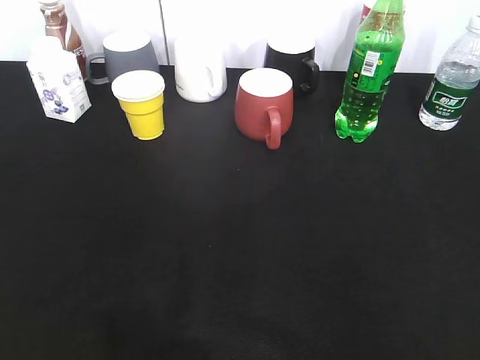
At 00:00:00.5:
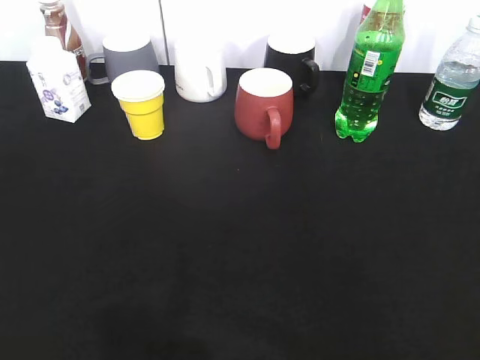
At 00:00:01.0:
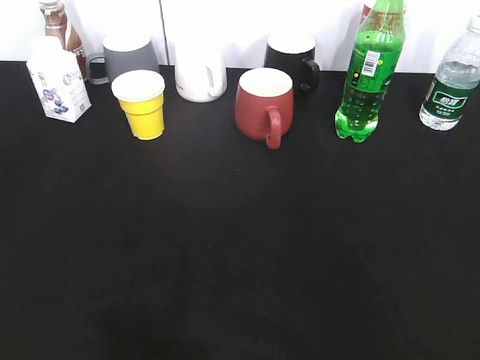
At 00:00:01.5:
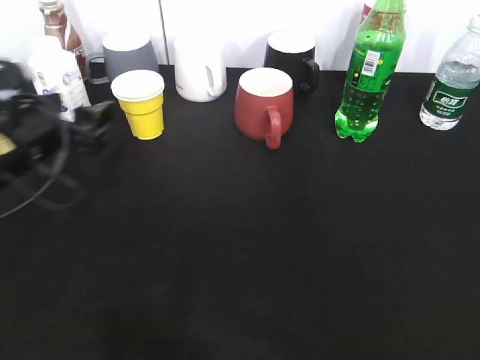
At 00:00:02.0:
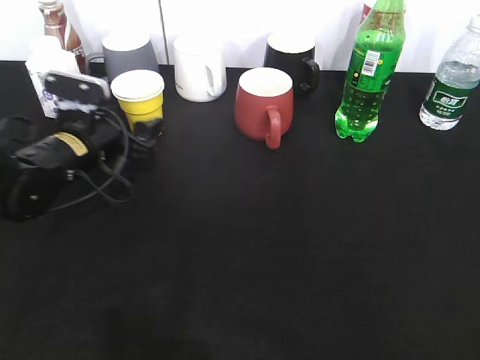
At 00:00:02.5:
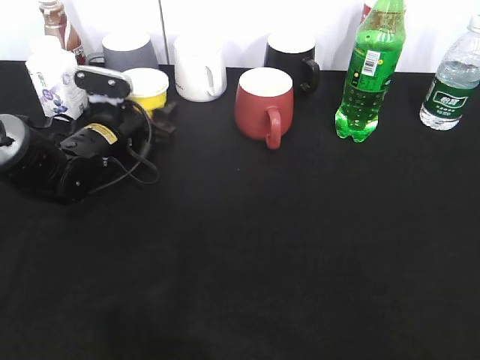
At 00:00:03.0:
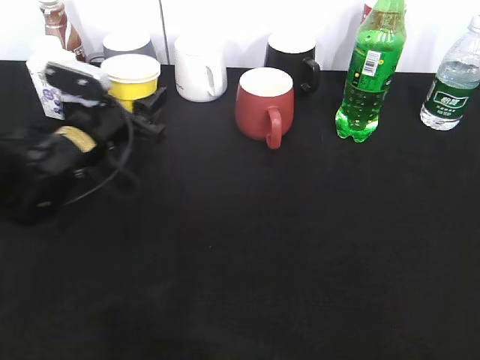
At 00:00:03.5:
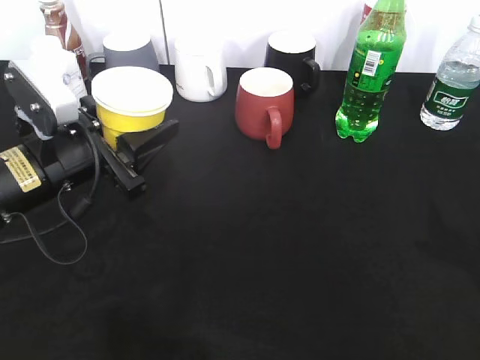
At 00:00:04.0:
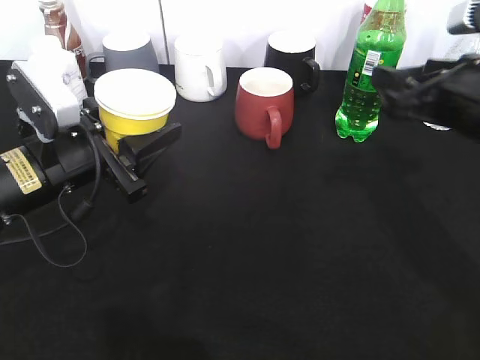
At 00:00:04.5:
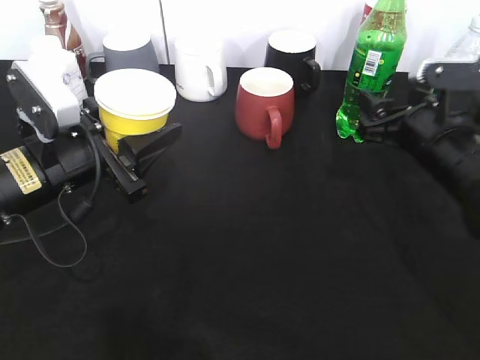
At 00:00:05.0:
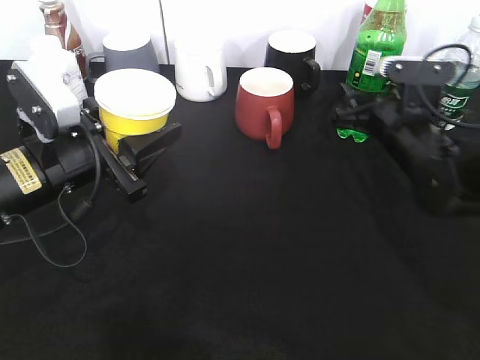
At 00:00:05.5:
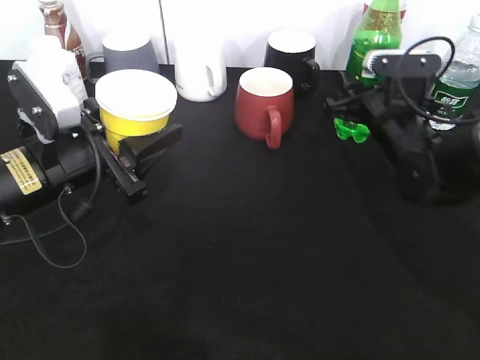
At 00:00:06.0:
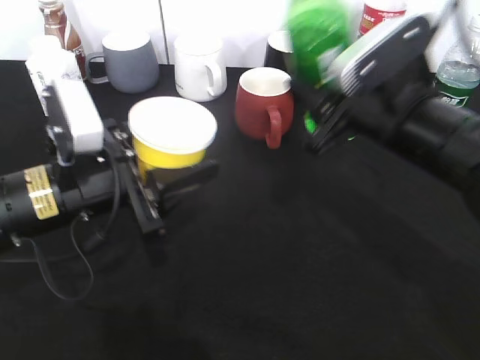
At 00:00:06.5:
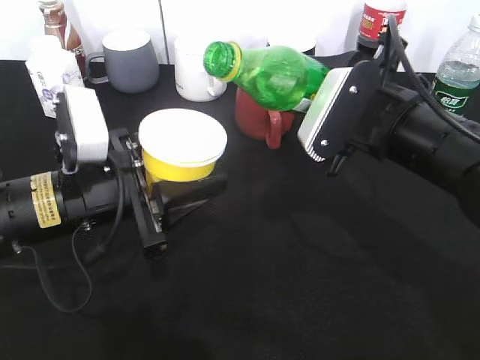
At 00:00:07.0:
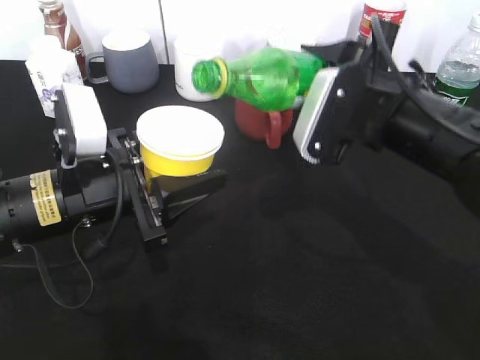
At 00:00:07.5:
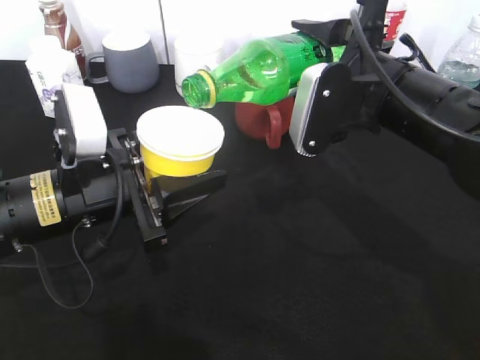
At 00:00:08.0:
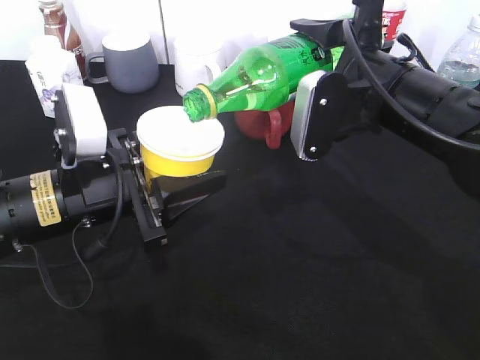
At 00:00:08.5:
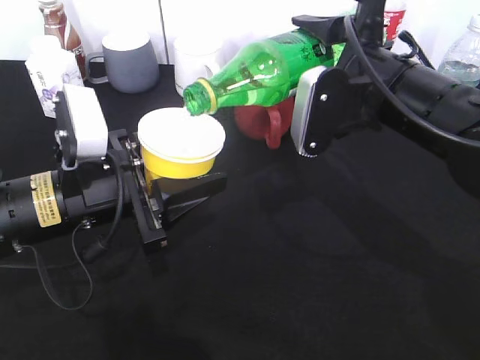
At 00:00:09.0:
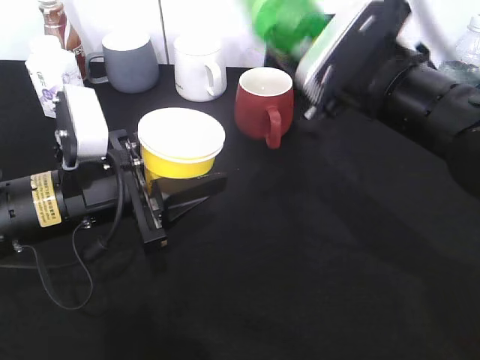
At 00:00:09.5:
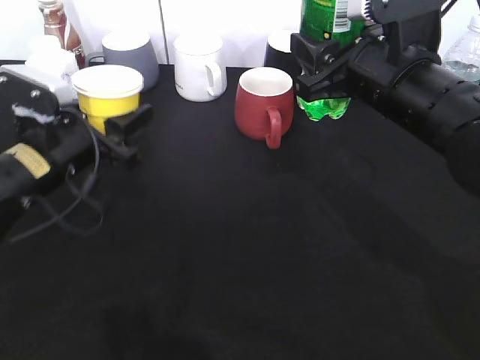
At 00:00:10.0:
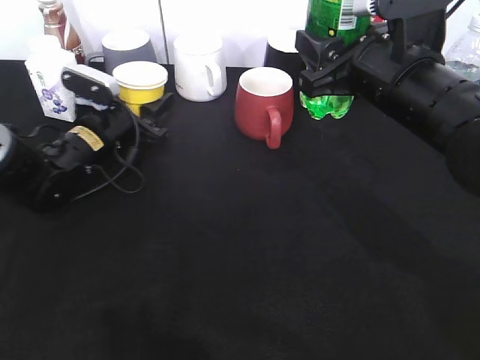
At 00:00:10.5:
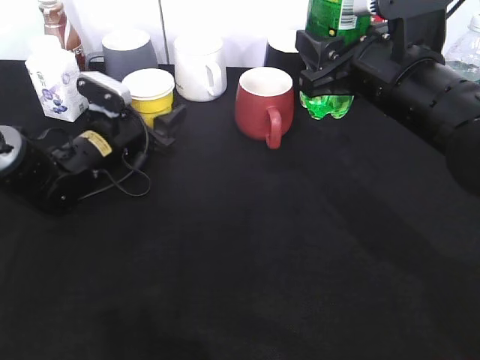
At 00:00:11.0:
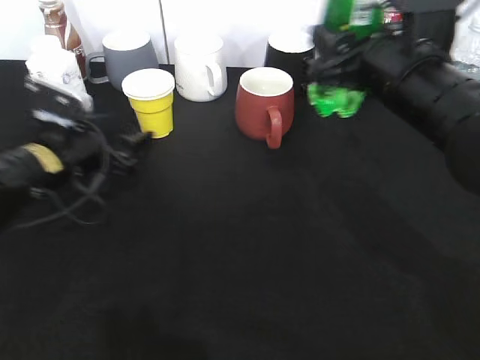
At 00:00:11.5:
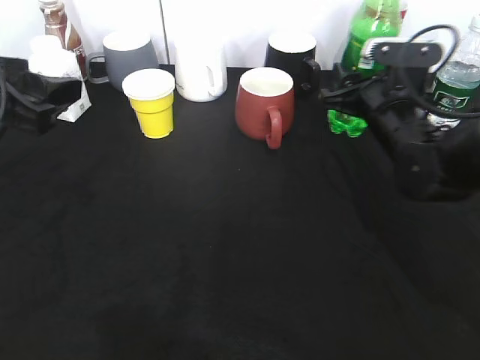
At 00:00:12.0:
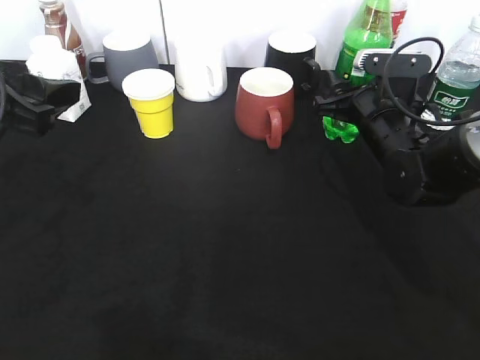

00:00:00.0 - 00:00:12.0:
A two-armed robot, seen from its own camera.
Step, 00:00:00.0 - 00:00:02.5: Grasp the yellow paper cup with left gripper.
Step, 00:00:03.0 - 00:00:03.5: Lift the yellow paper cup with left gripper.
Step, 00:00:04.0 - 00:00:05.0: Grasp the bottle with sprite with right gripper.
Step, 00:00:05.5 - 00:00:08.5: Pour the sprite from bottle to cup with right gripper.
00:00:00.0 - 00:00:02.0: The left gripper heads forward and downward, covering roughly 40 cm, and closes, then opens again.
00:00:02.0 - 00:00:04.0: The right gripper shifts some 25 cm forward, while the left gripper moves backward and upward, approximately 10 cm, and closes up.
00:00:04.0 - 00:00:06.0: The right gripper shifts some 5 cm to the left, goes forward and returns, approximately 10 cm each way, and closes.
00:00:08.0 - 00:00:10.0: The left gripper is displaced forward and downward by some 20 cm.
00:00:10.0 - 00:00:12.0: The left gripper heads backward and upward, covering some 25 cm, and opens its fingers. Meanwhile the right gripper goes roughly 15 cm downward and forward, and opens its fingers.

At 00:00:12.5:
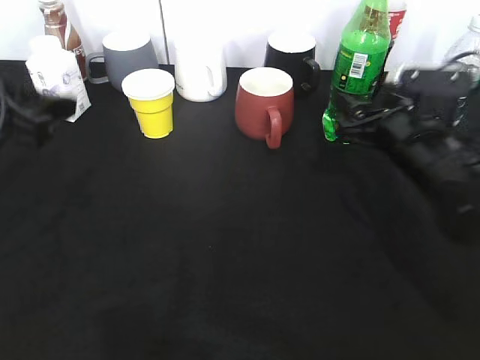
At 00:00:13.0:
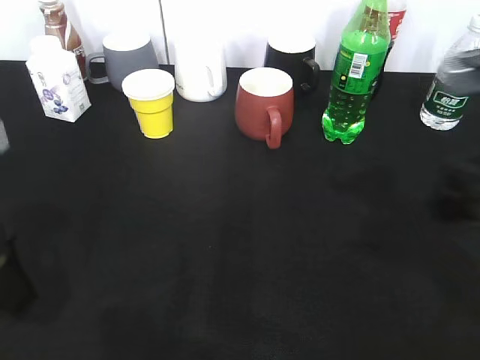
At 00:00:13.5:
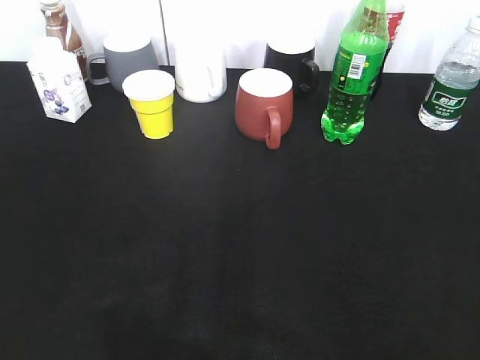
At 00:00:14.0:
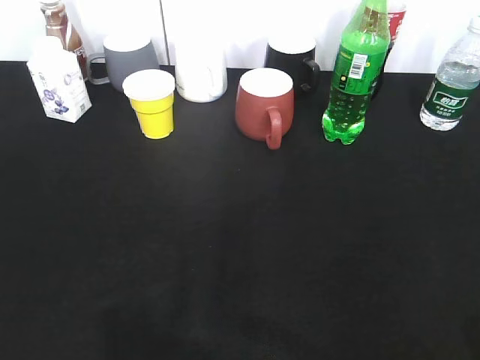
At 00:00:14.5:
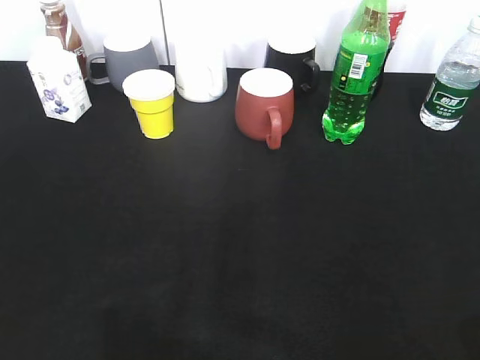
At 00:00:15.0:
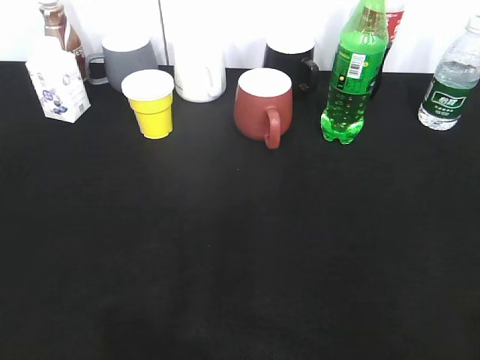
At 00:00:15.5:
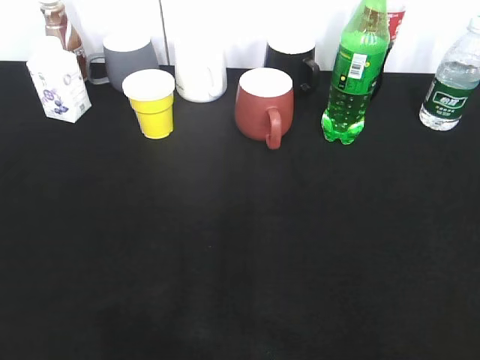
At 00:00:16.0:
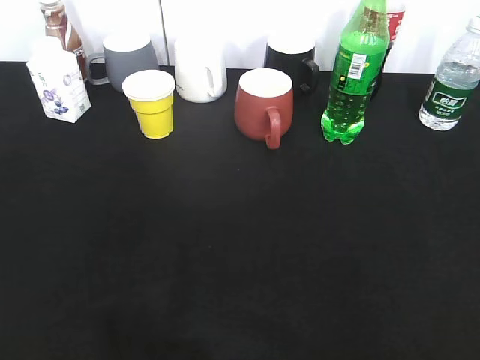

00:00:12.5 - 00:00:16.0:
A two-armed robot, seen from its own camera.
00:00:12.5 - 00:00:14.5: The right gripper travels backward and upward by some 30 cm. The left gripper moves backward, approximately 20 cm.
00:00:14.5 - 00:00:16.0: The left gripper closes.
